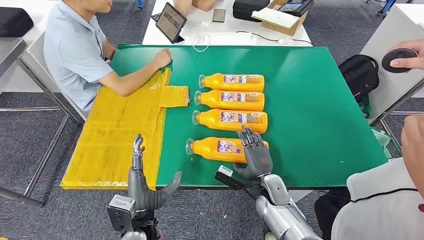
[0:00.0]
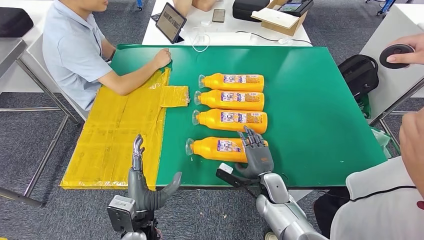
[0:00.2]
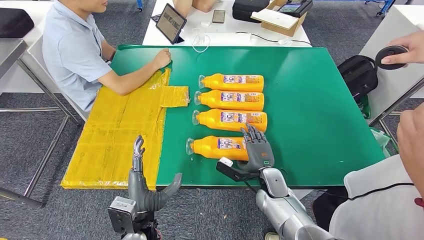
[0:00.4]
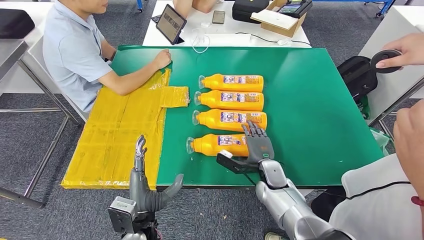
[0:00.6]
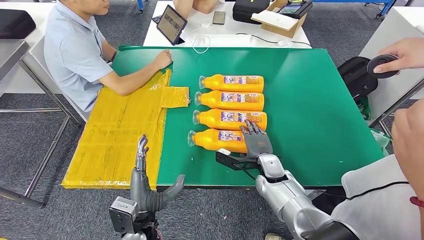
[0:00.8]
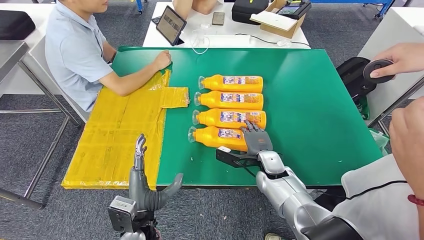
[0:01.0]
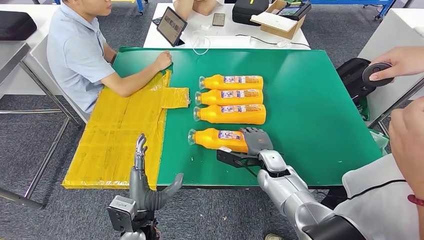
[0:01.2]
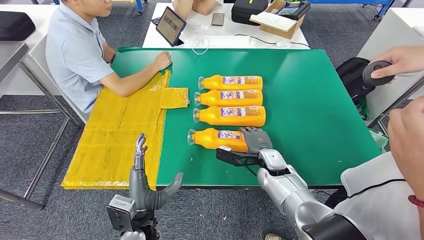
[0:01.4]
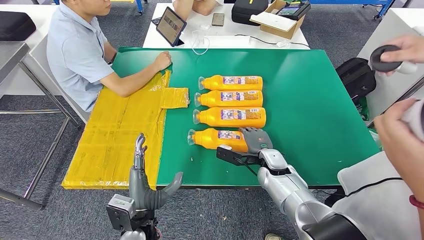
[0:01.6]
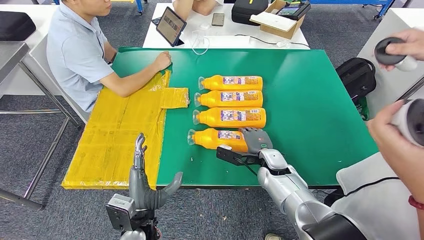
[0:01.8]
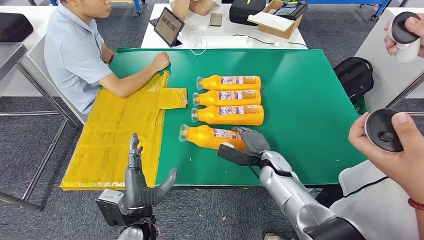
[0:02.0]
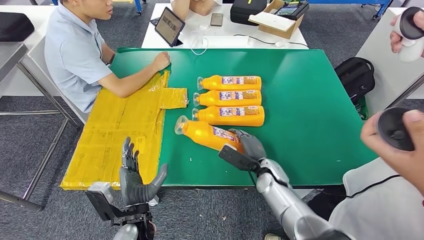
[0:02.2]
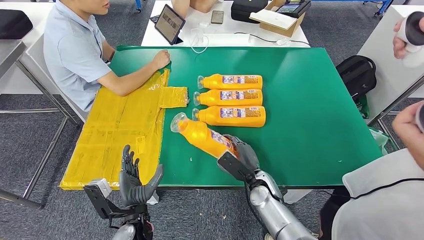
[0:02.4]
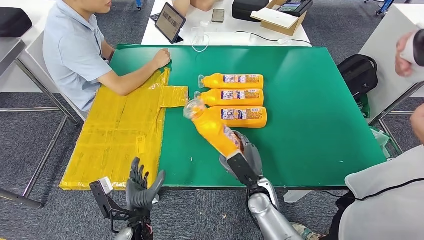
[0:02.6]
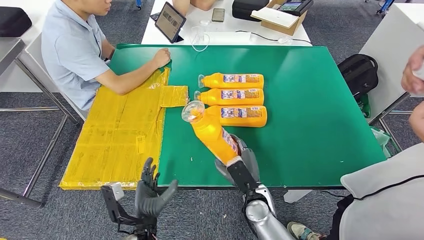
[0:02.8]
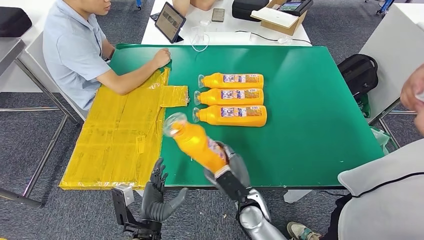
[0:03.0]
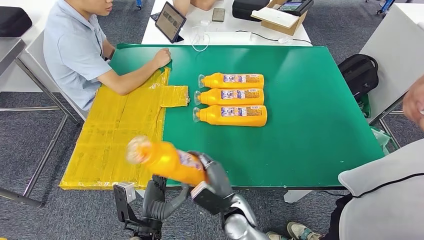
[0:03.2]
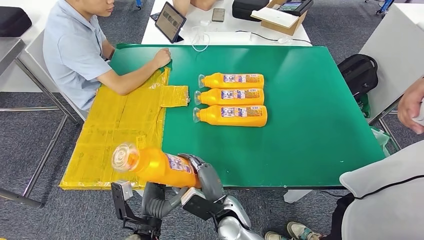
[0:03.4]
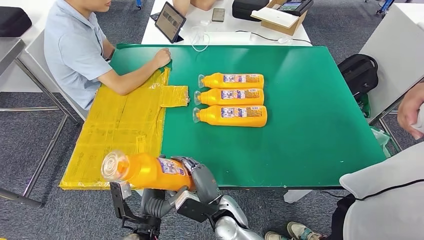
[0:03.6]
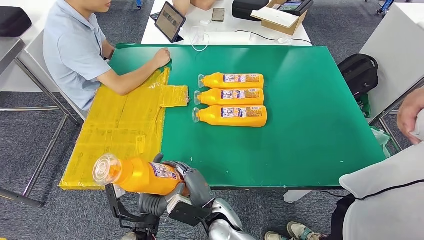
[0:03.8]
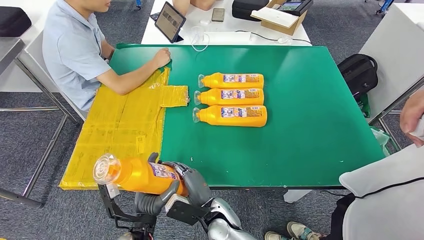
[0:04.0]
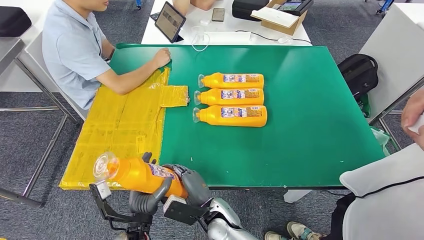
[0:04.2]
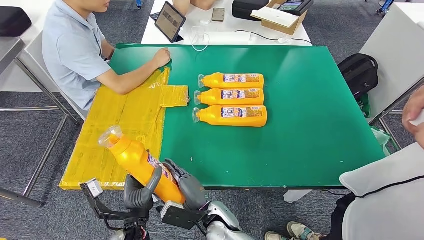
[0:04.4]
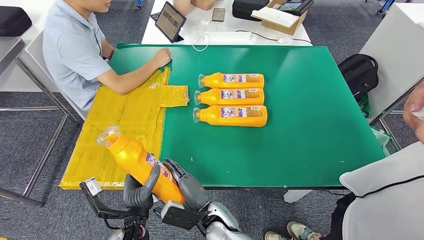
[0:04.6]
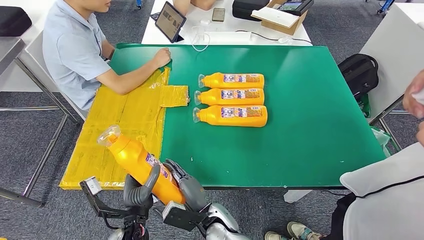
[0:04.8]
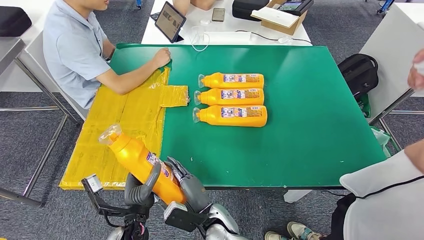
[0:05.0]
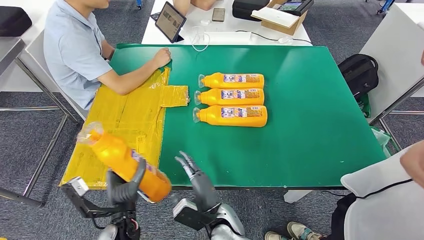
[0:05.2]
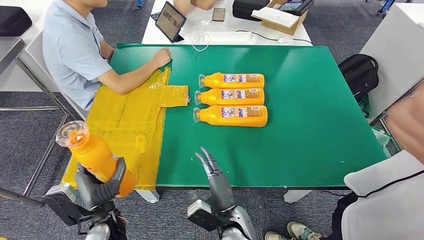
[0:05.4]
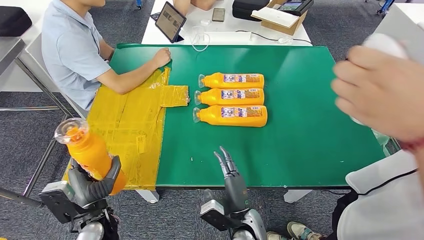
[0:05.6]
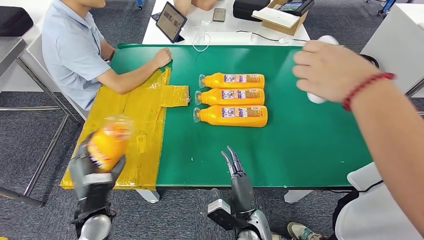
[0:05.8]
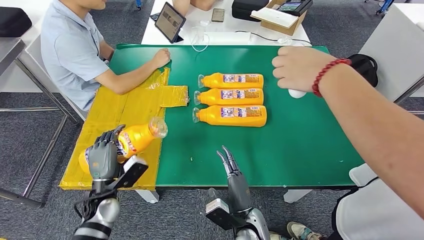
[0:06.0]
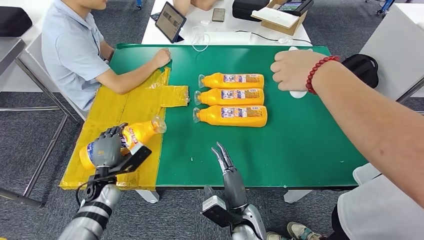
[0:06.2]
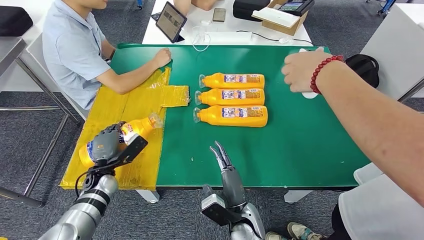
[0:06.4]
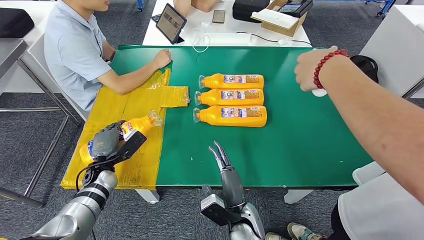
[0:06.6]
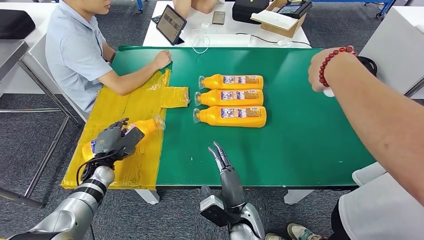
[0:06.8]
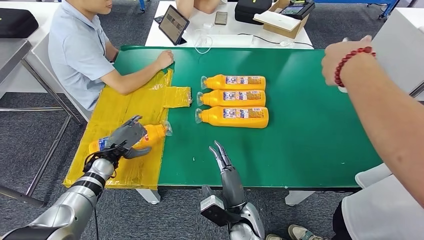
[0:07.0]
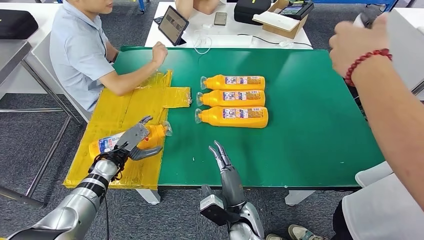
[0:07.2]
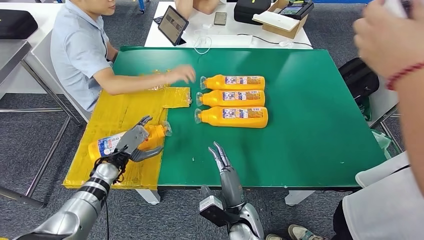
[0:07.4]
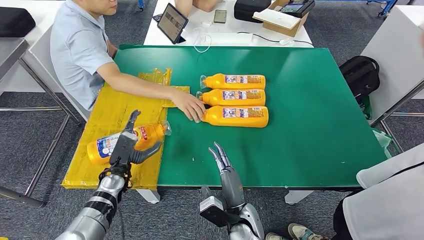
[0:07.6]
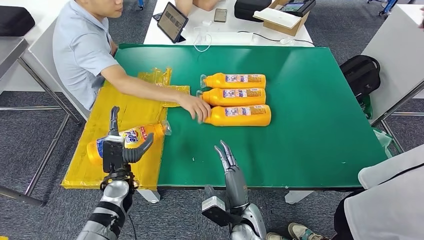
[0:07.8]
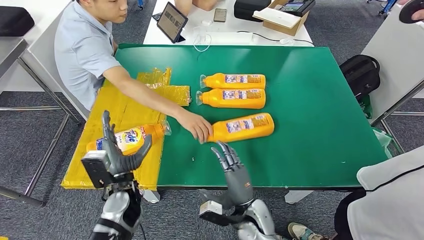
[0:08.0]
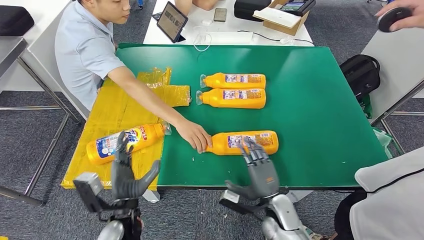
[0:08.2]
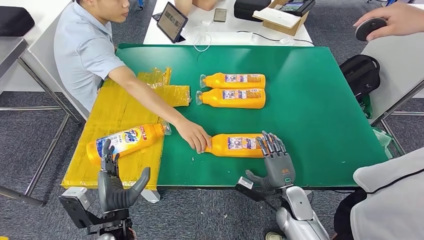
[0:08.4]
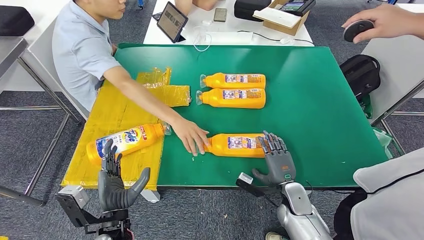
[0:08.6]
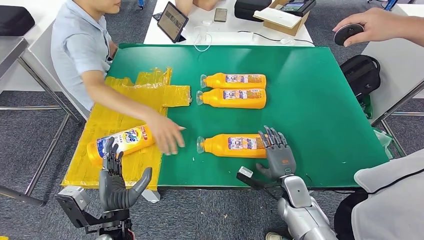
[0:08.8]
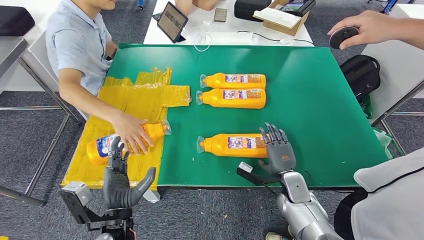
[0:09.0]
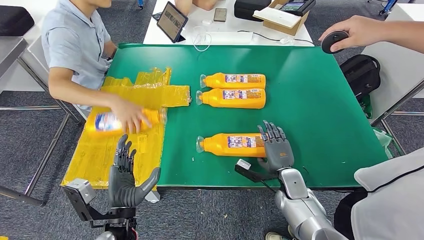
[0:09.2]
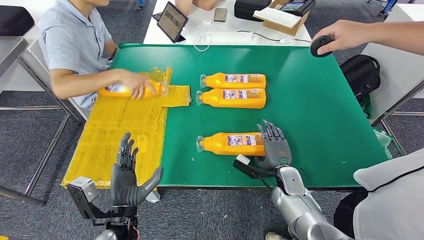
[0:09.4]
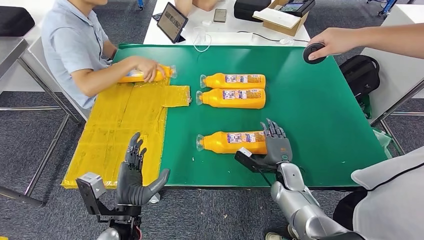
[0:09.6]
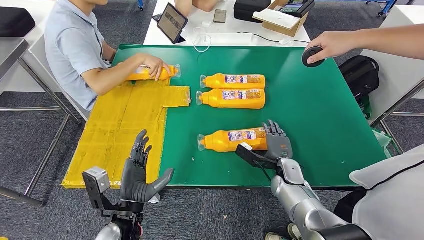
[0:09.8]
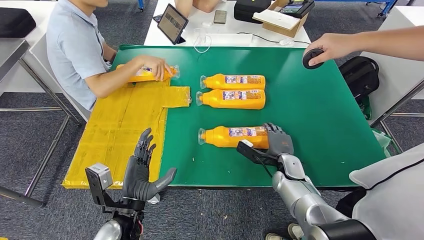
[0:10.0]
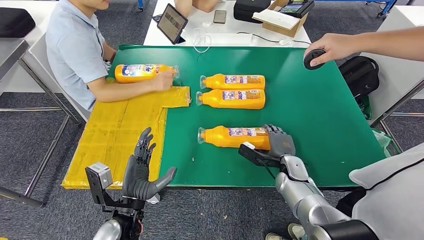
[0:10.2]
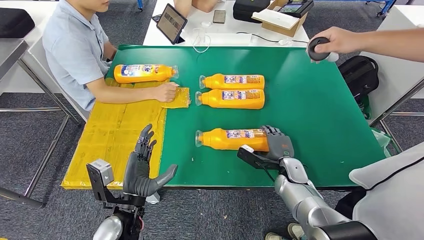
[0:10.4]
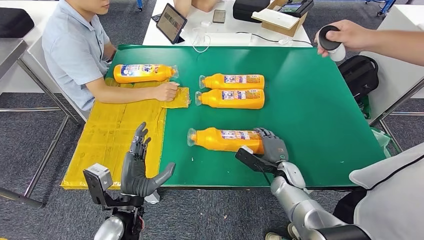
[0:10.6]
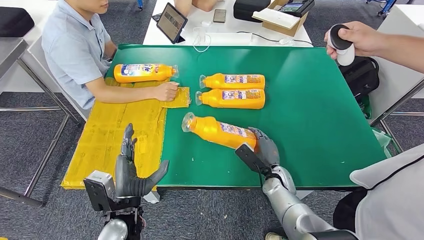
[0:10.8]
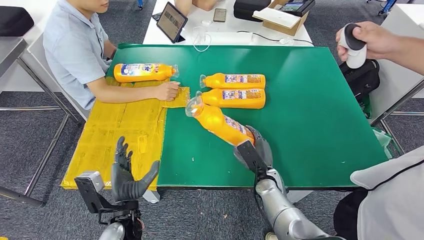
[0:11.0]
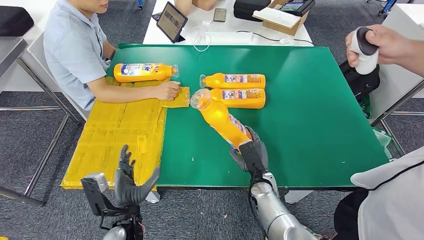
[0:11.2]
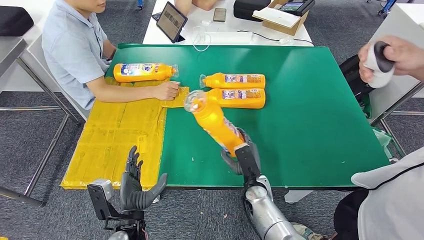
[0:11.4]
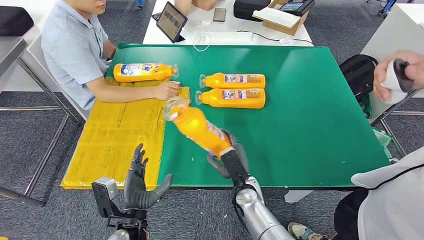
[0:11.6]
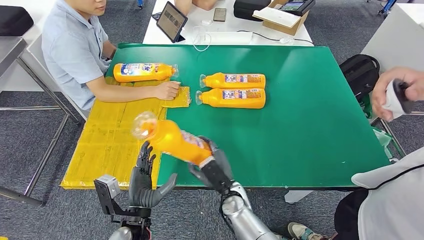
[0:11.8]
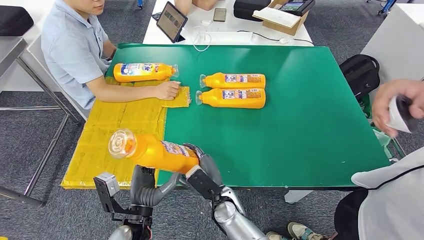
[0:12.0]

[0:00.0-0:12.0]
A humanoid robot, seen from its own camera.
Step, 0:00.0 to 0:02.4: Take the fast-moving consumer goods bottle from the table.
Step, 0:02.6 to 0:08.2: Flip the fast-moving consumer goods bottle to the front side.
0:03.0 to 0:04.4: The right hand is displaced to the left by approximately 10 cm.

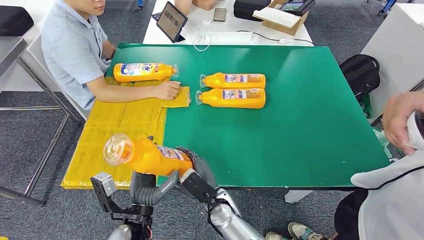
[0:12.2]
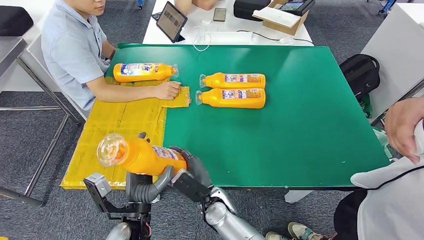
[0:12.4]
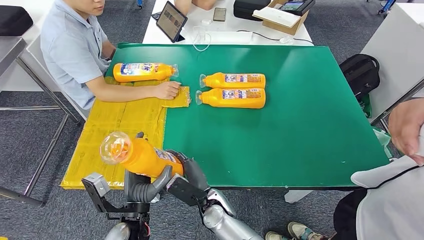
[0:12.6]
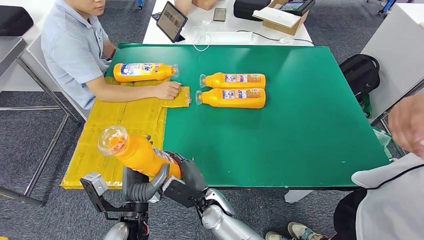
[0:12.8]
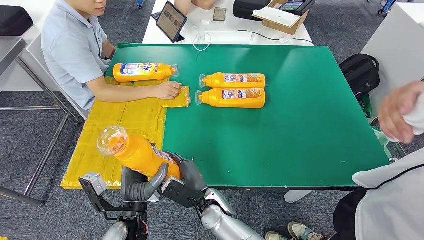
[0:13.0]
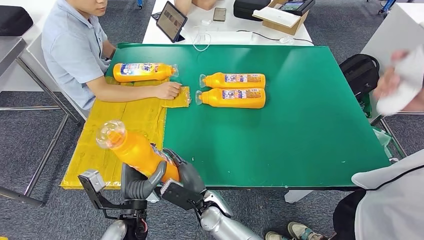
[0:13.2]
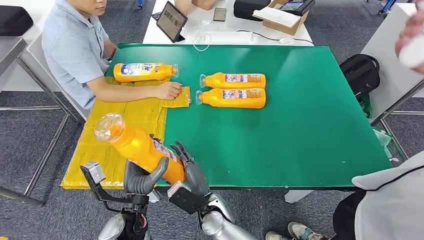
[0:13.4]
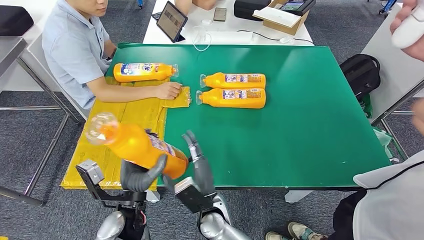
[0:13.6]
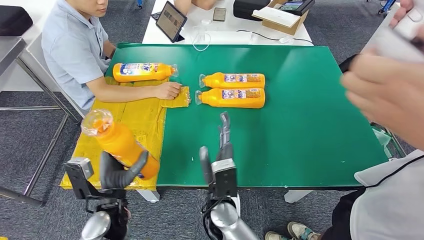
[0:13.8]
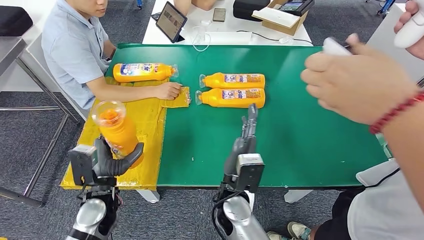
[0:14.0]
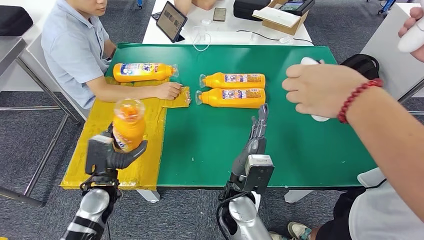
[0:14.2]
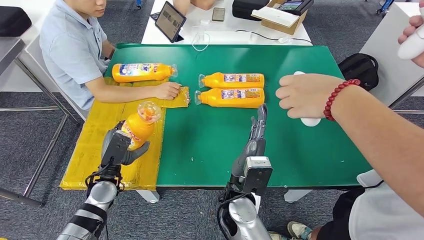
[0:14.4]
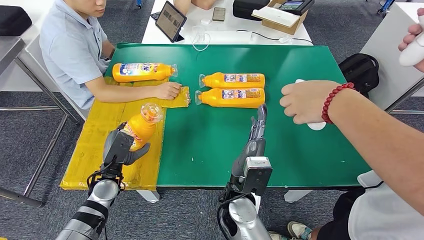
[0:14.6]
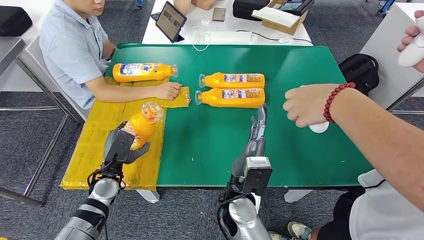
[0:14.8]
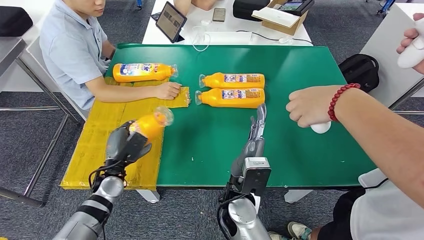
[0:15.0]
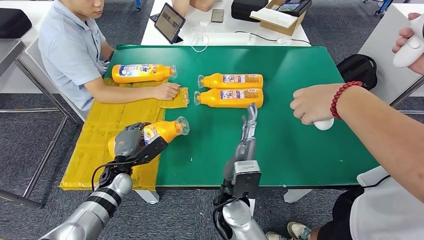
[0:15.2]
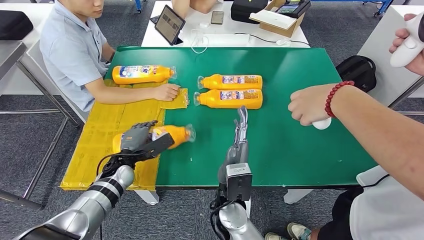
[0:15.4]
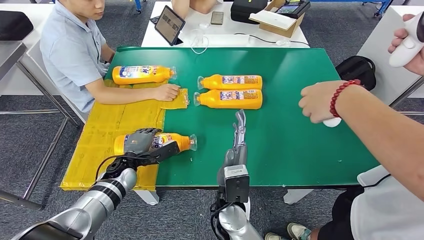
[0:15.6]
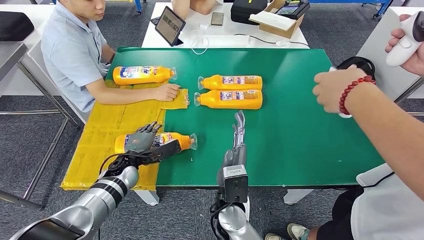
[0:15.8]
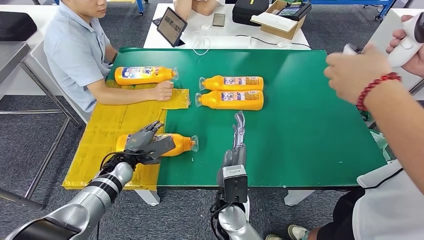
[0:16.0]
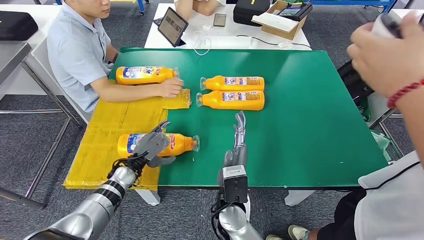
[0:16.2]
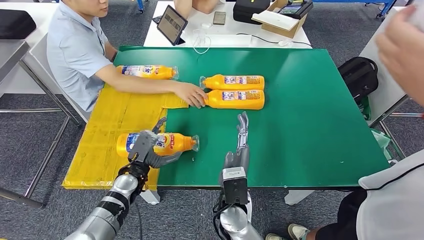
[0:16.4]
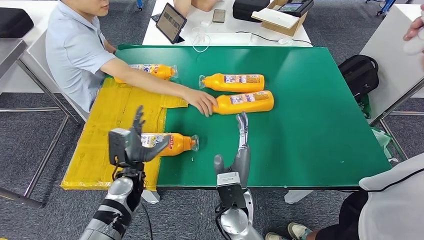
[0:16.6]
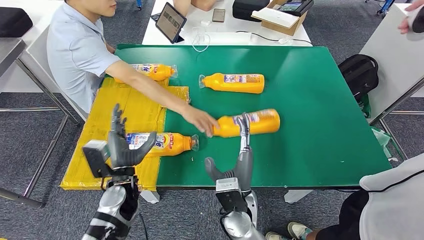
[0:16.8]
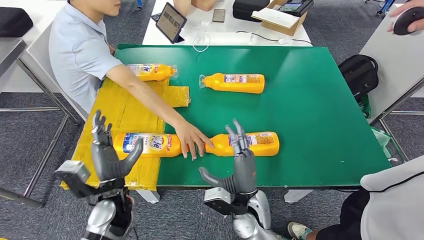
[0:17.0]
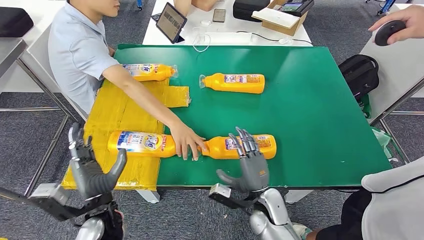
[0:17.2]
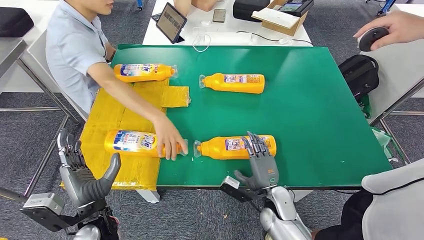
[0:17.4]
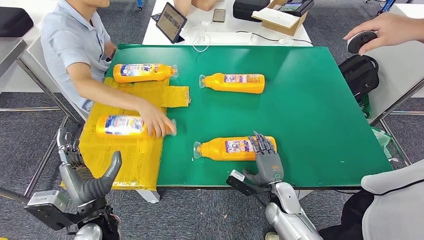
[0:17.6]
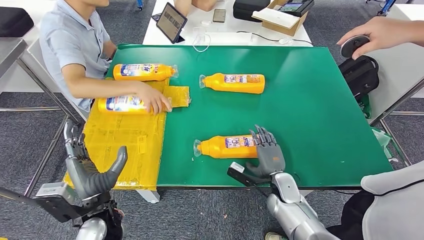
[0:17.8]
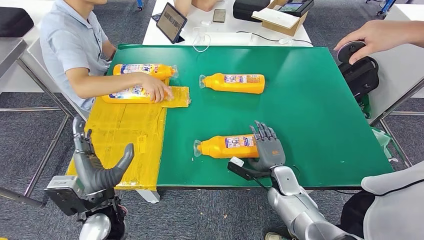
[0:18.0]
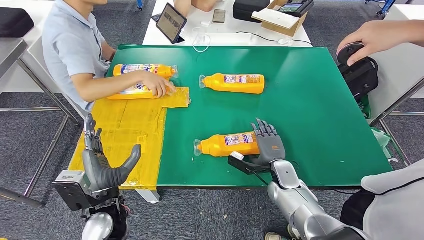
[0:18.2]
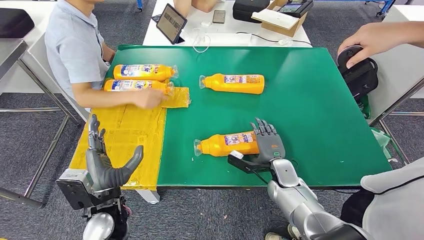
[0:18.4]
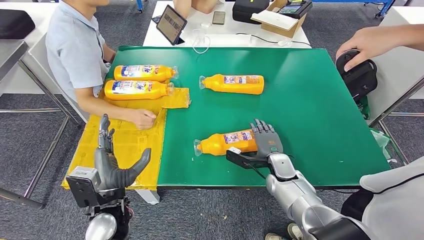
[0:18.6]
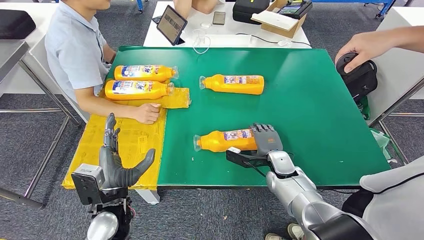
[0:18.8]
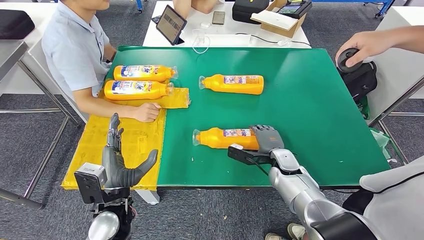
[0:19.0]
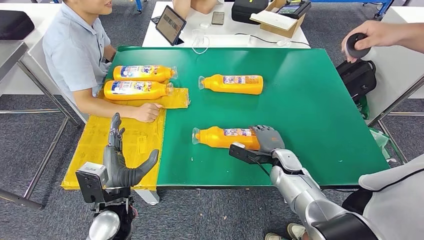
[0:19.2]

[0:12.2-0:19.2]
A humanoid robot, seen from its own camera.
Step, 0:12.4 to 0:16.8: Flip the fast-moving consumer goods bottle to the front side.
0:12.2 to 0:13.6: The hands stay close to where they were, moving slightly.
